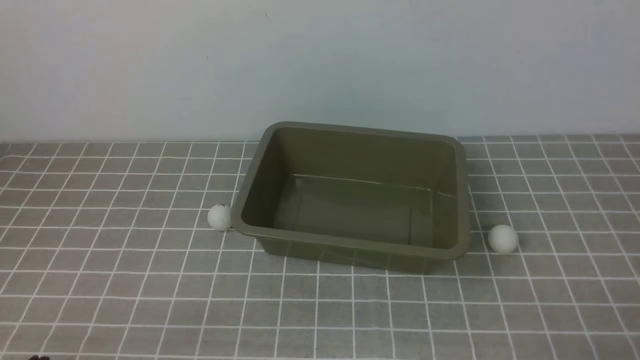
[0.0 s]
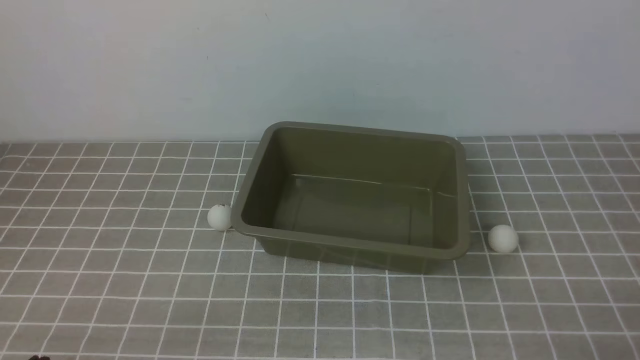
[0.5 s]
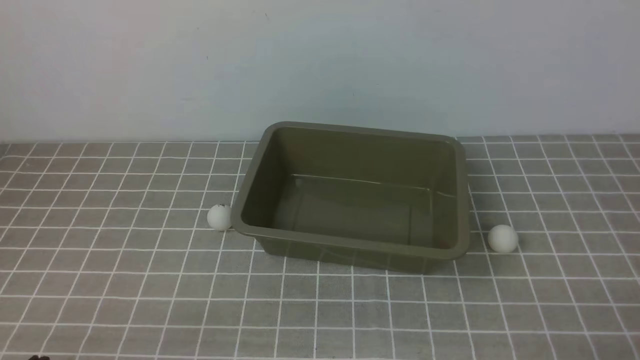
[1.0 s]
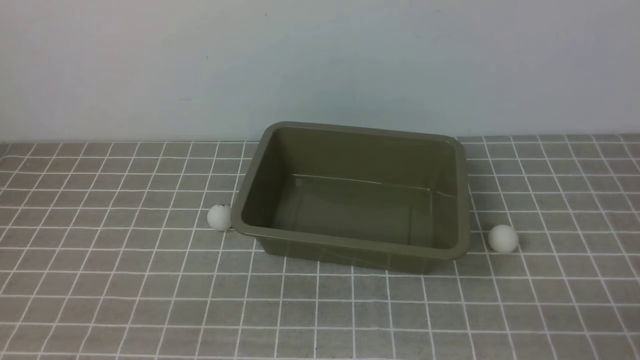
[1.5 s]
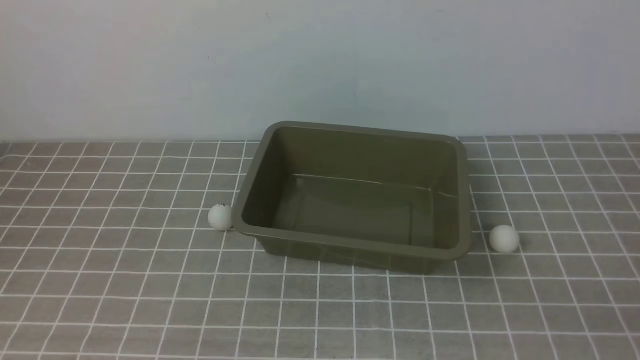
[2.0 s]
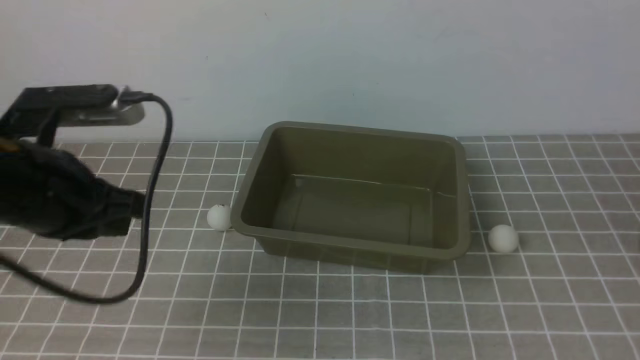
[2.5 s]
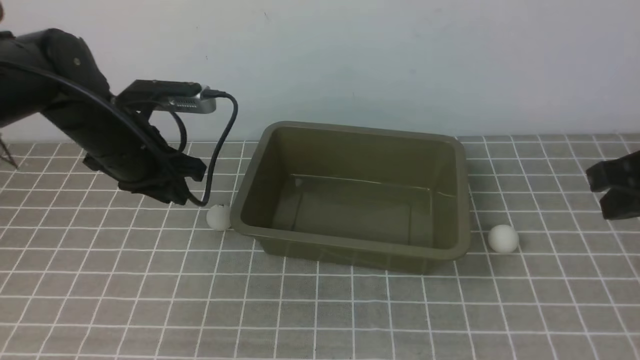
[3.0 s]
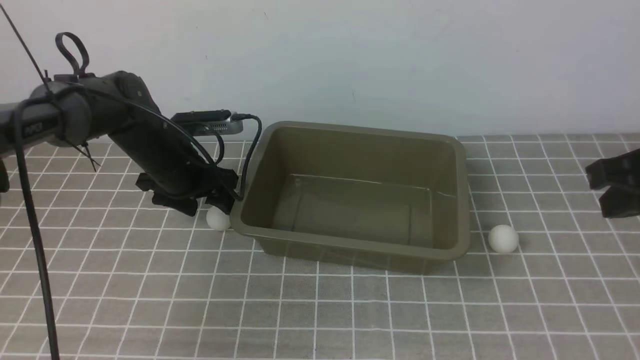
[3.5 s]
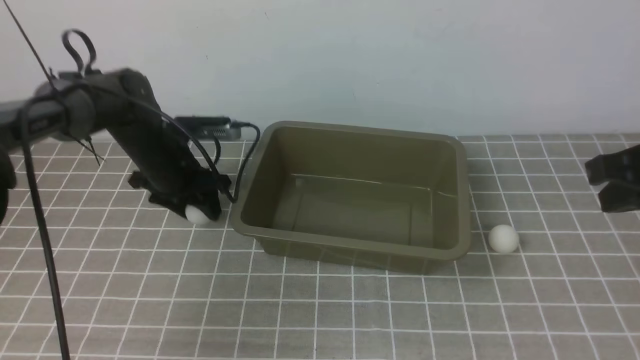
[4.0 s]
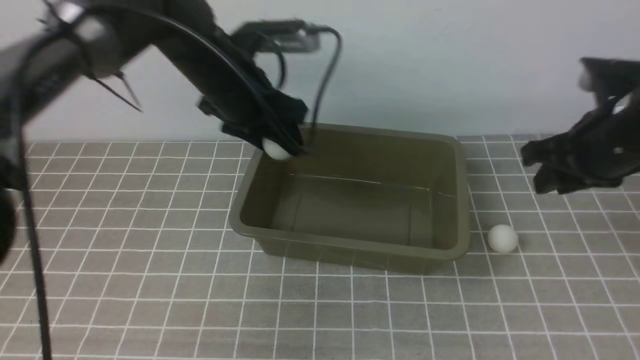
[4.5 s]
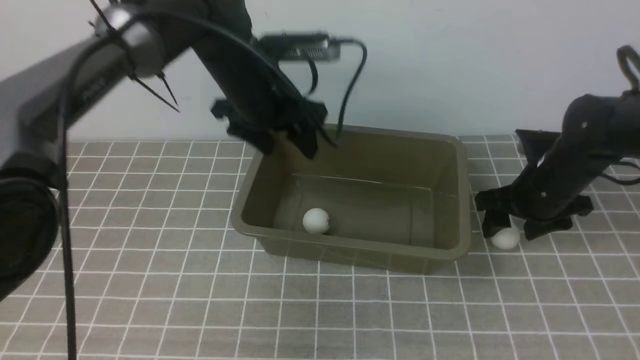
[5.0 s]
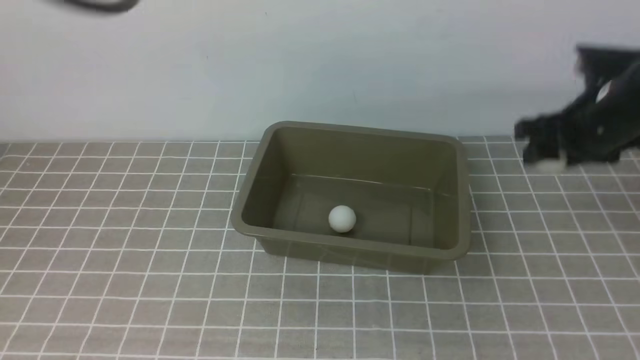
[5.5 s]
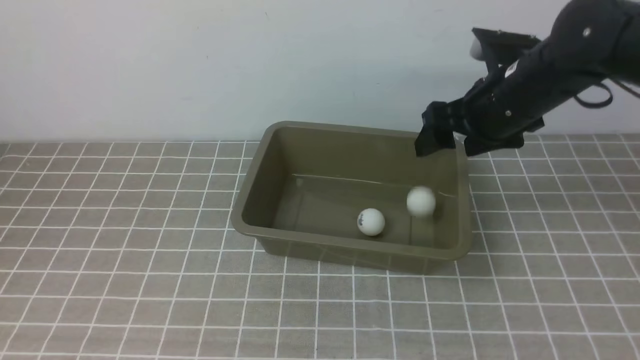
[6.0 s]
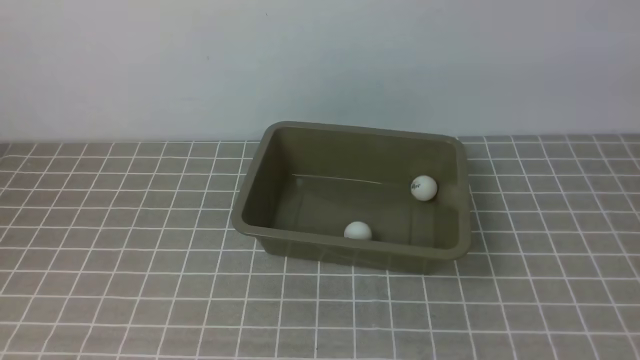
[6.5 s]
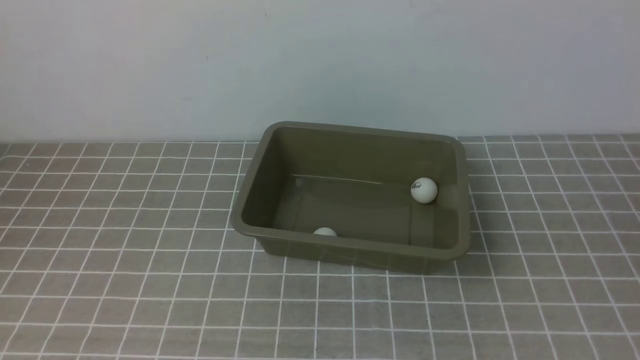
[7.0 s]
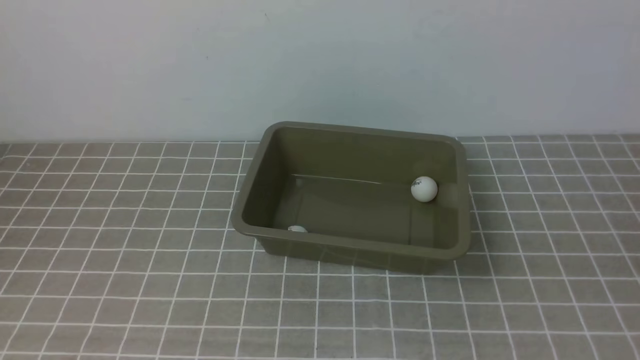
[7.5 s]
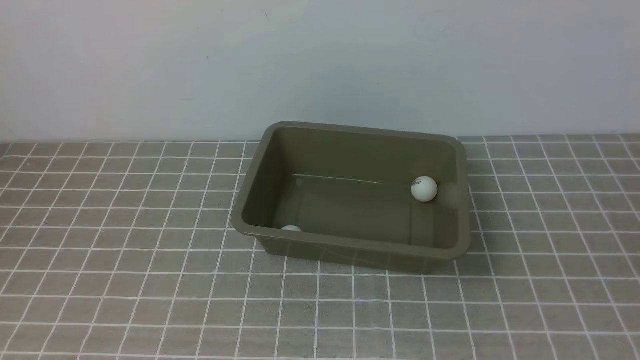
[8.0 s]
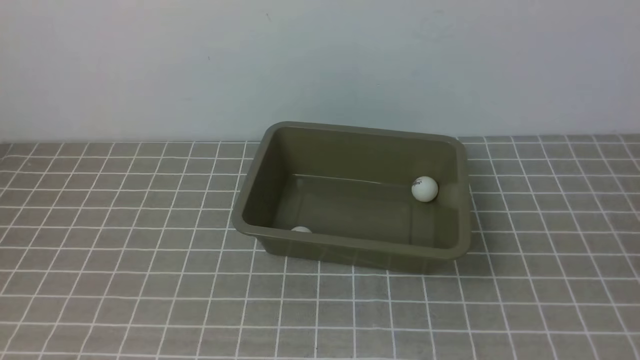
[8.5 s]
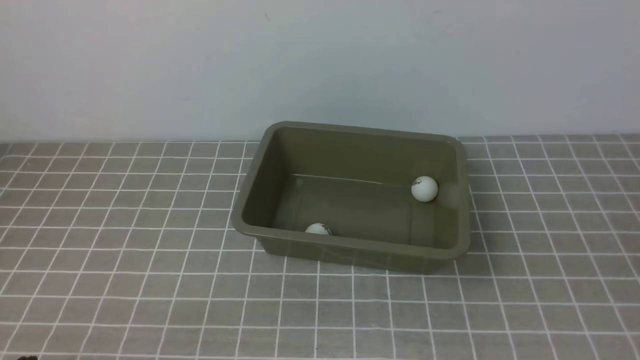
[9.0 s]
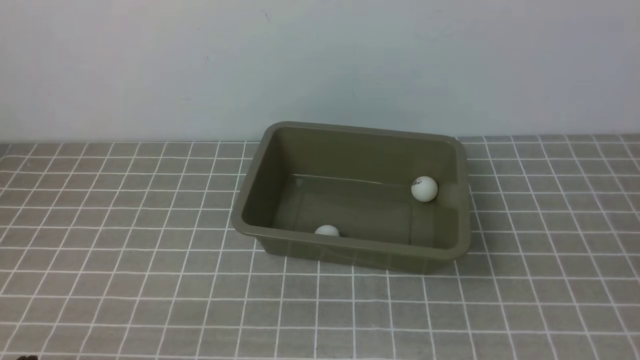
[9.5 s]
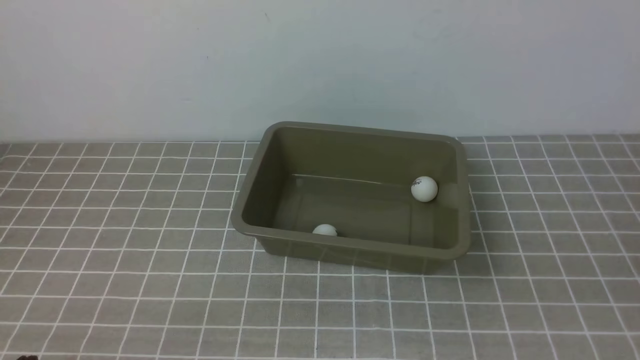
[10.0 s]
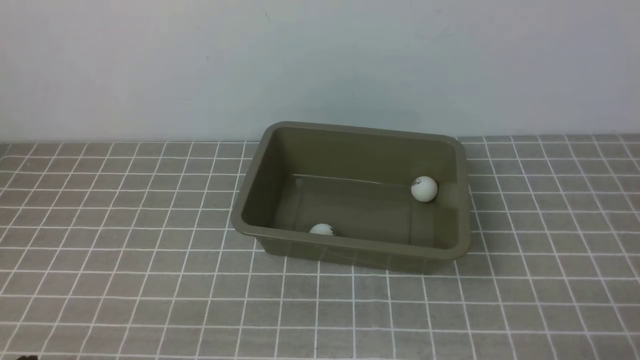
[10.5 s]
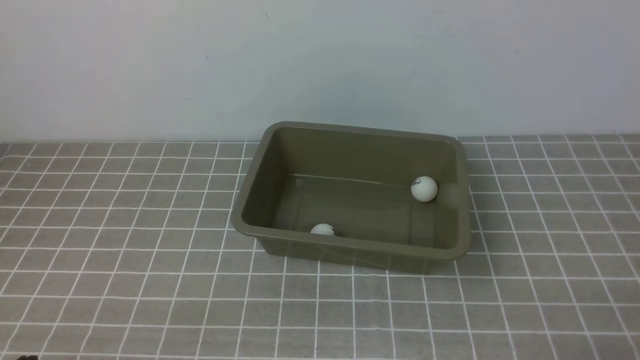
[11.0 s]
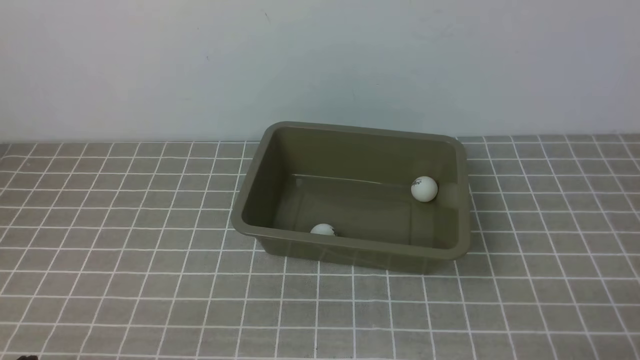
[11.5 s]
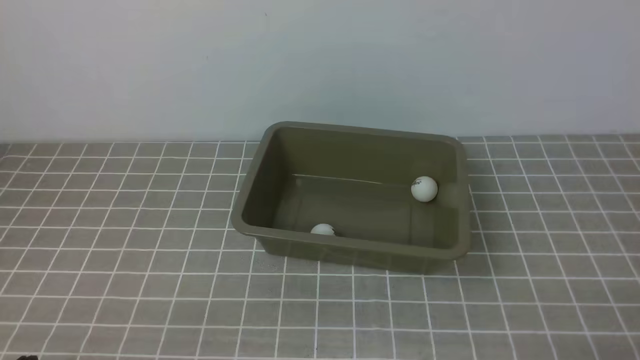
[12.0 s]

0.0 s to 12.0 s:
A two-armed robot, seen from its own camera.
Step, 0.0 to 4.0 s: use the left arm to clamp the table tennis ball closest to it.
Step, 5.5 to 6.0 s: use the right arm to put the table tennis ball into the box.
2.0 to 4.0 s: The left gripper shifts about 35 cm forward, and opens up; the right gripper is displaced forward and upward by approximately 20 cm.
4.0 to 6.0 s: The left gripper moves backward and upward, roughly 40 cm, and closes up. Meanwhile the right gripper is displaced forward and to the left by about 15 cm, goes downward and returns, about 15 cm each way, and opens.
6.0 to 8.0 s: The right gripper travels backward by roughly 35 cm, and closes up. Meanwhile the left gripper moves backward and downward, some 10 cm.

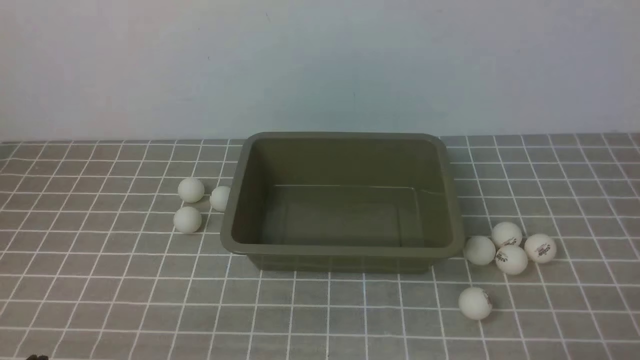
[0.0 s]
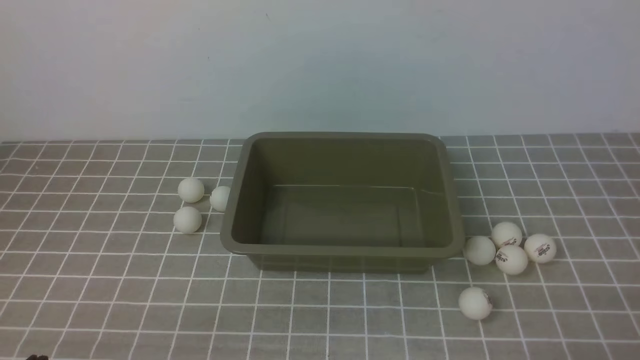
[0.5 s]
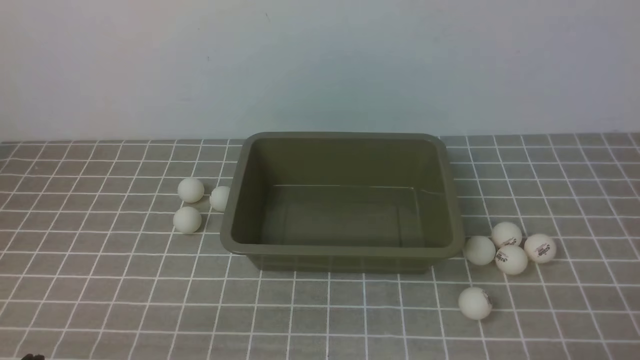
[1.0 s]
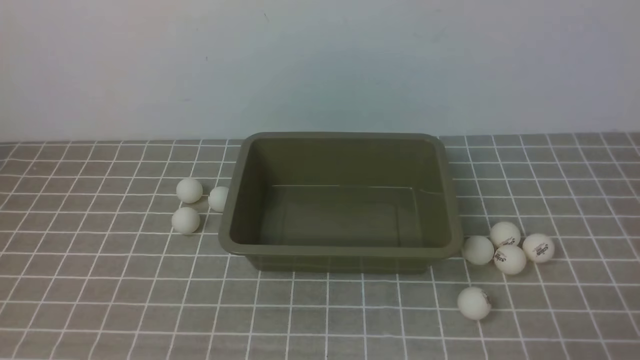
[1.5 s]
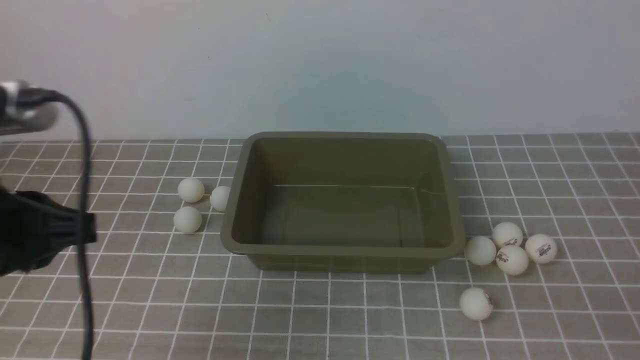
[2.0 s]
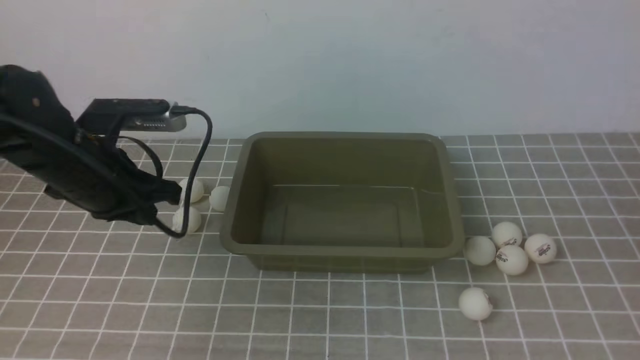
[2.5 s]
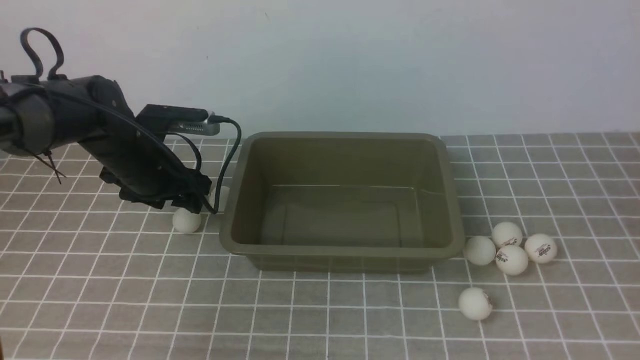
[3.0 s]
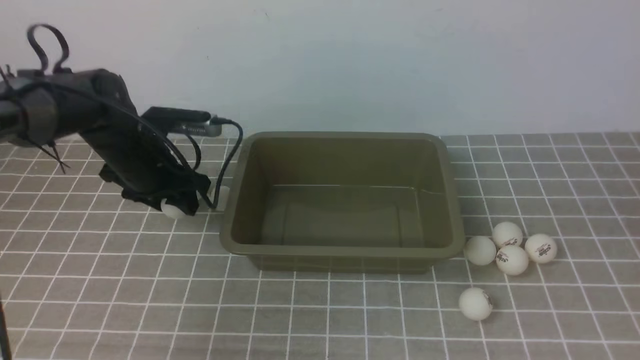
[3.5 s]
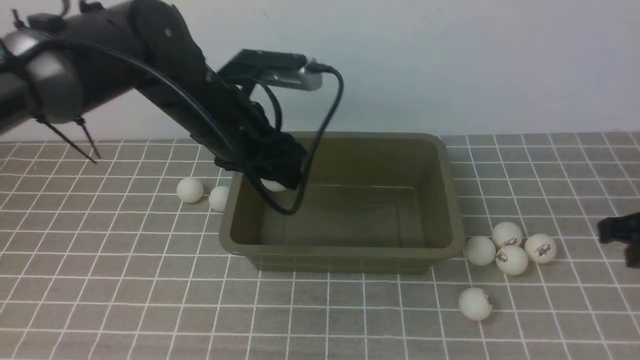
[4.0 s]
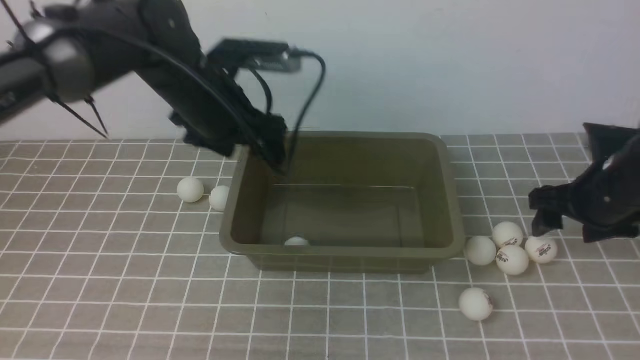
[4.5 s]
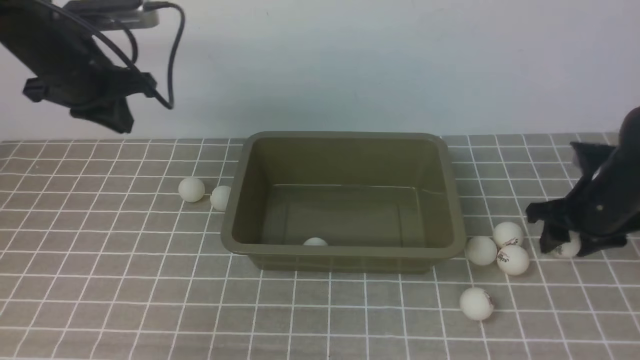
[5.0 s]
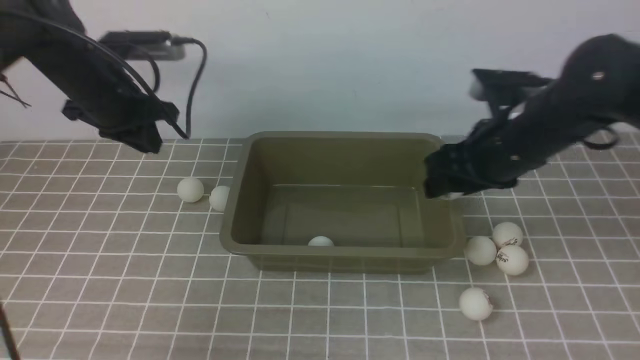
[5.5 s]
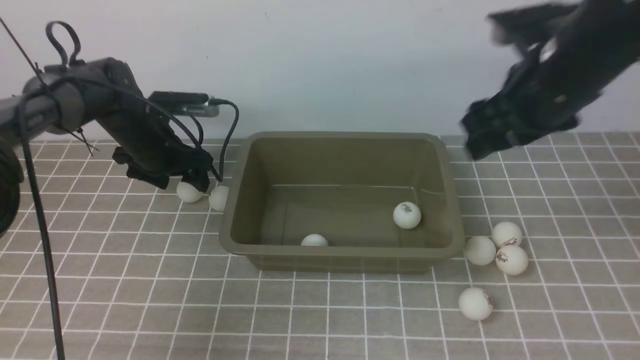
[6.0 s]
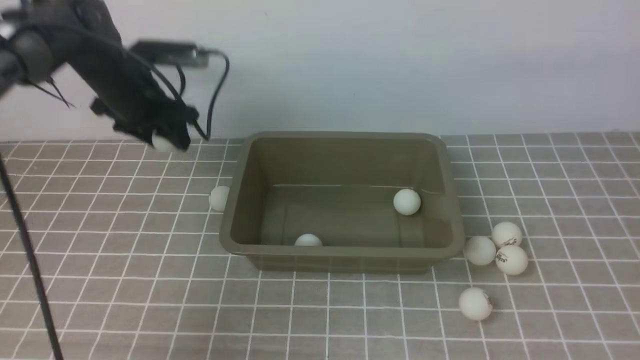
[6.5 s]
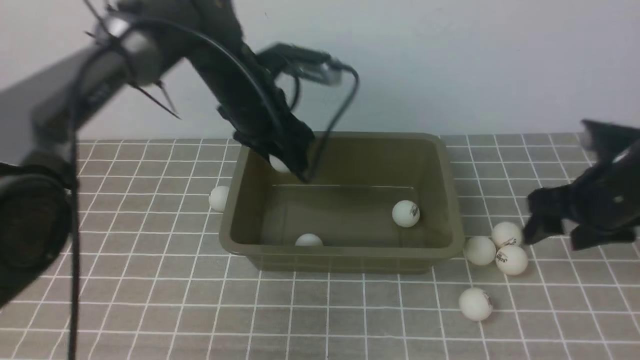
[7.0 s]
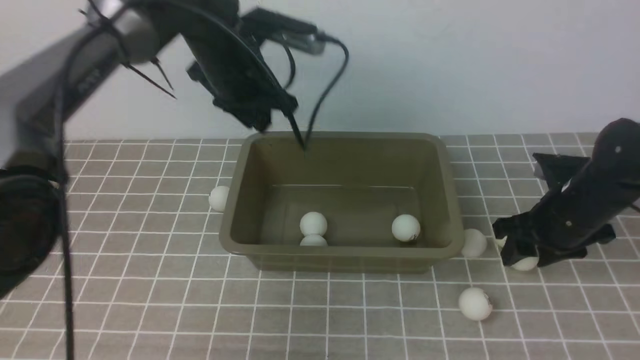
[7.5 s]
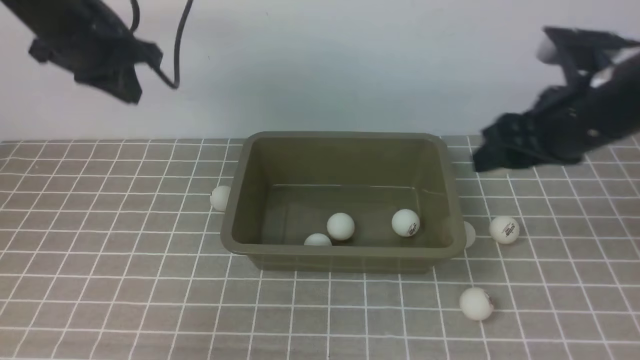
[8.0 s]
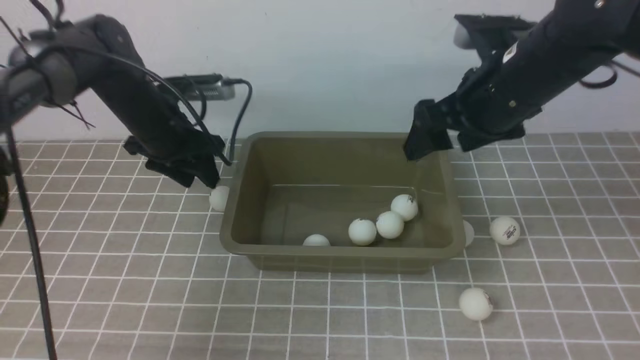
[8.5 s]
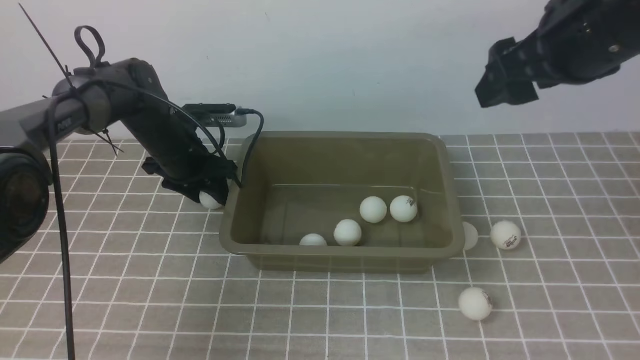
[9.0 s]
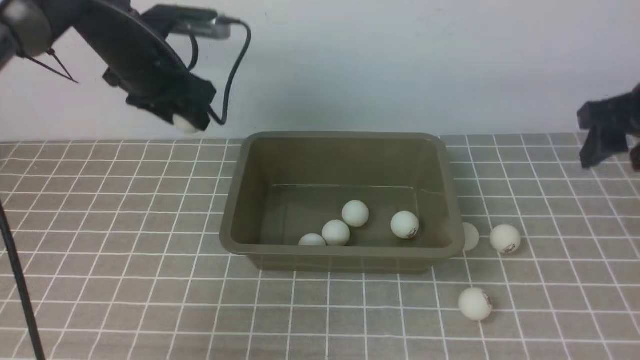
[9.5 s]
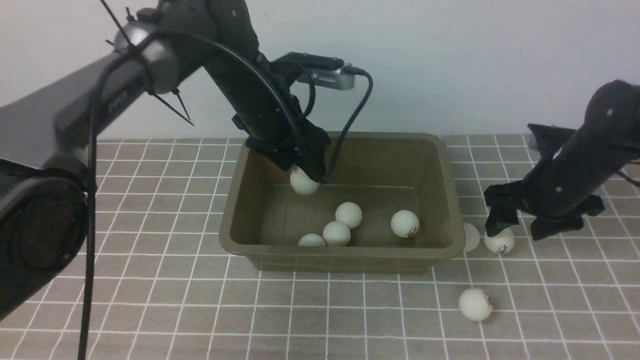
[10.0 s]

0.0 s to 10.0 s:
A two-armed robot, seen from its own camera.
Step, 0.0 to 3.5 s: use the left arm to clamp the table tennis ball closest to it.
Step, 4.5 to 5.0 s: use the right arm to clamp the table tennis ball closest to it.
Step, 6.5 to 7.0 s: use the left arm to put the table tennis ball into the box.
Step, 8.5 to 9.0 s: use the left arm to clamp the table tennis ball closest to it.
Step, 9.5 to 10.0 s: use the left arm to put the table tennis ball into the box.
0.0 to 2.0 s: The left gripper shifts roughly 20 cm upward and forward.
2.0 to 4.0 s: The left gripper moves forward and to the right, roughly 25 cm, and opens, while the right gripper is displaced forward by approximately 20 cm.
4.0 to 6.0 s: The left gripper moves to the left, downward and forward, roughly 20 cm, and closes, then opens again. The right gripper travels to the left, forward and upward by about 15 cm, and opens up.
6.0 to 8.0 s: The right gripper travels downward and back again, roughly 15 cm each way. Meanwhile the left gripper is displaced upward by some 15 cm, and closes.
8.0 to 10.0 s: The right gripper moves downward and to the right, roughly 15 cm. The left gripper goes some 15 cm to the right and downward, and opens.
